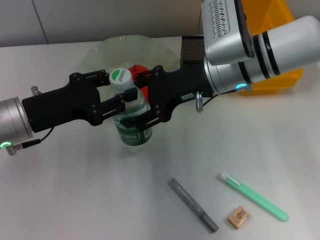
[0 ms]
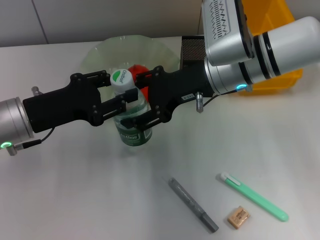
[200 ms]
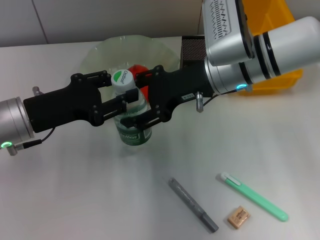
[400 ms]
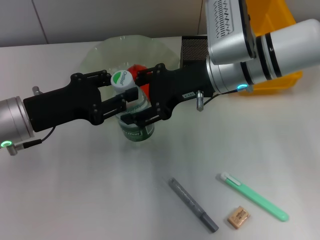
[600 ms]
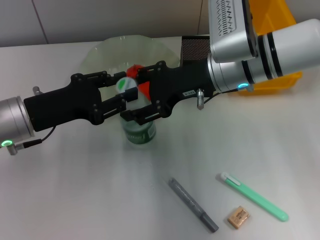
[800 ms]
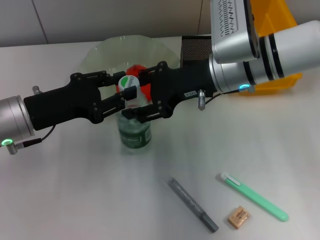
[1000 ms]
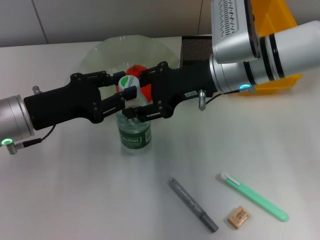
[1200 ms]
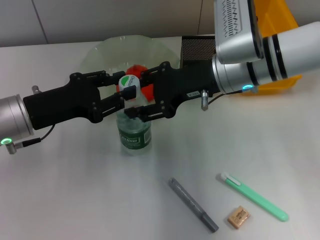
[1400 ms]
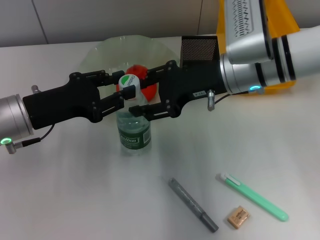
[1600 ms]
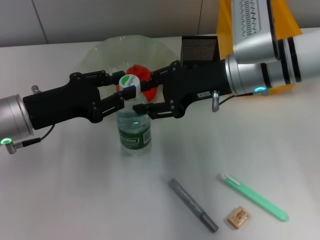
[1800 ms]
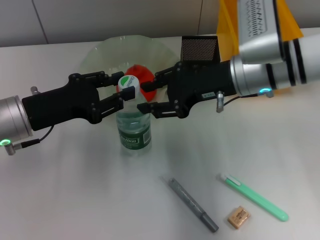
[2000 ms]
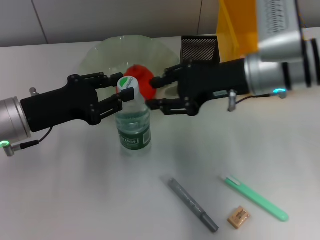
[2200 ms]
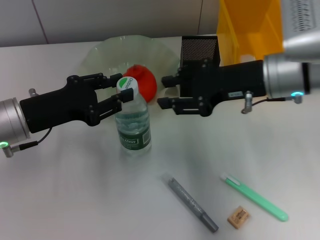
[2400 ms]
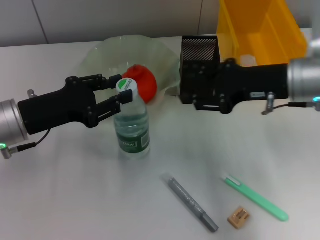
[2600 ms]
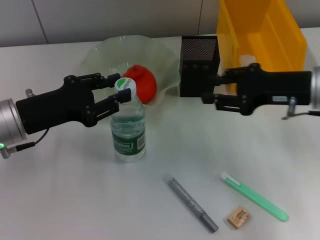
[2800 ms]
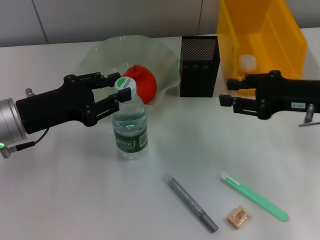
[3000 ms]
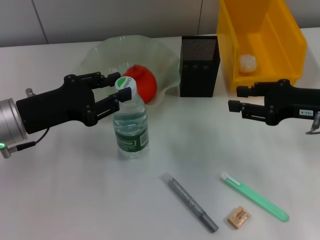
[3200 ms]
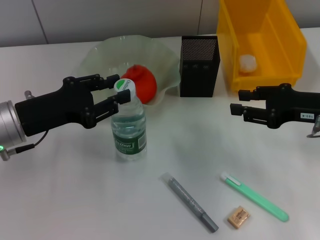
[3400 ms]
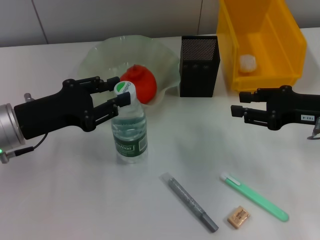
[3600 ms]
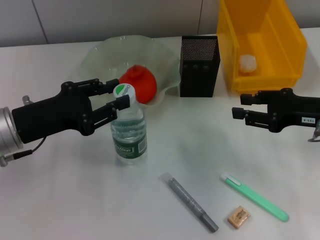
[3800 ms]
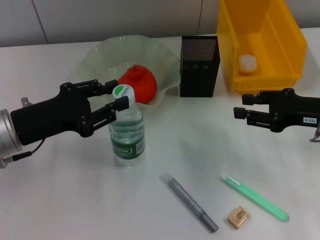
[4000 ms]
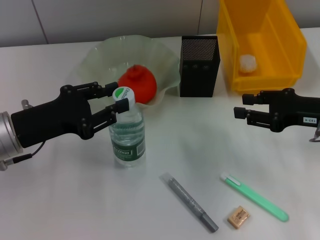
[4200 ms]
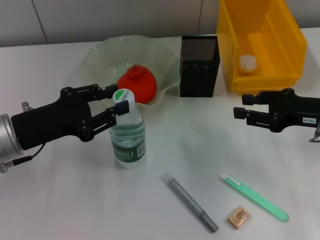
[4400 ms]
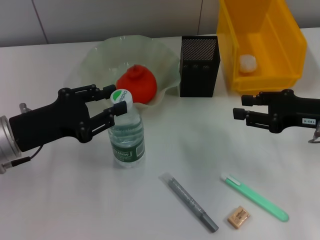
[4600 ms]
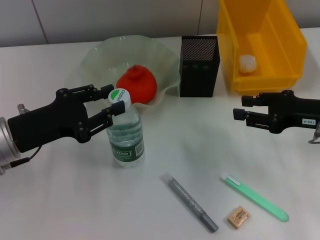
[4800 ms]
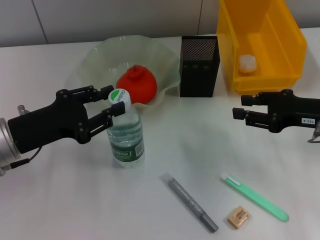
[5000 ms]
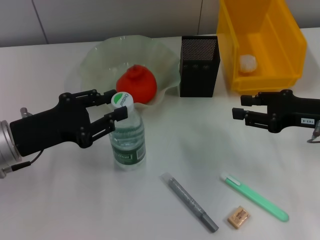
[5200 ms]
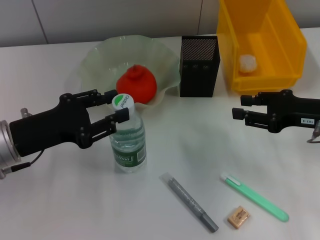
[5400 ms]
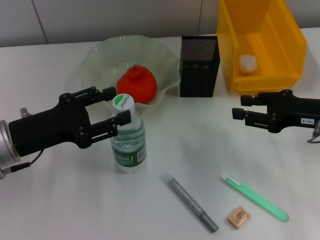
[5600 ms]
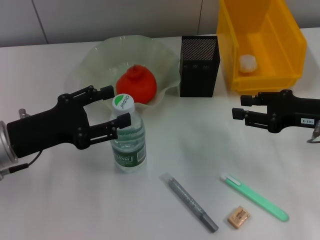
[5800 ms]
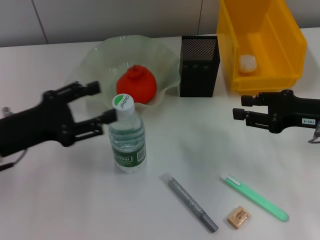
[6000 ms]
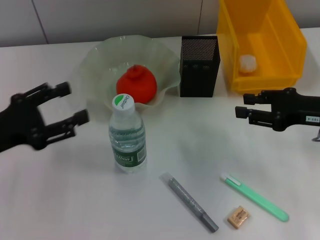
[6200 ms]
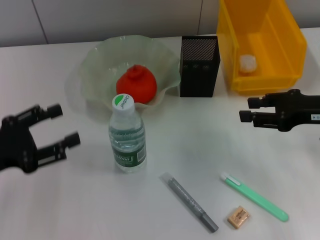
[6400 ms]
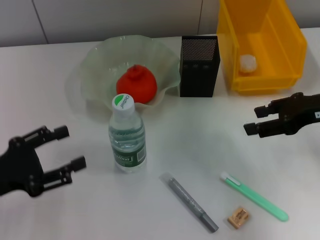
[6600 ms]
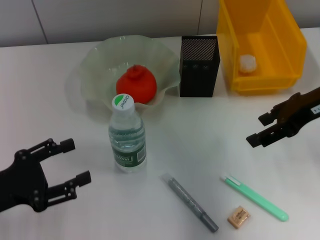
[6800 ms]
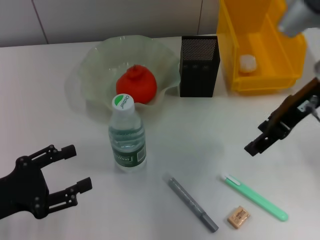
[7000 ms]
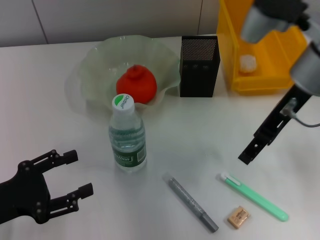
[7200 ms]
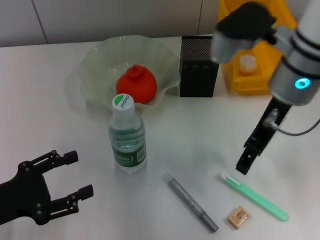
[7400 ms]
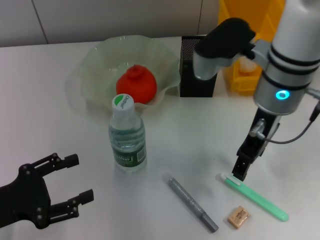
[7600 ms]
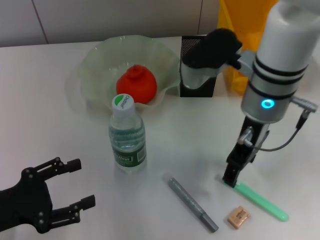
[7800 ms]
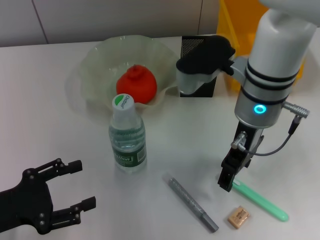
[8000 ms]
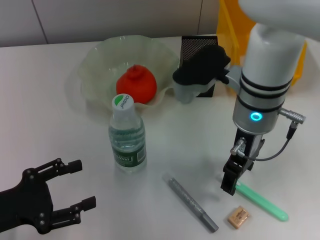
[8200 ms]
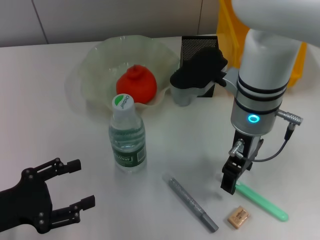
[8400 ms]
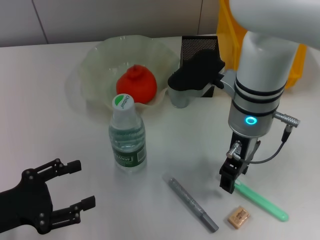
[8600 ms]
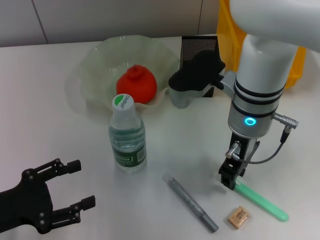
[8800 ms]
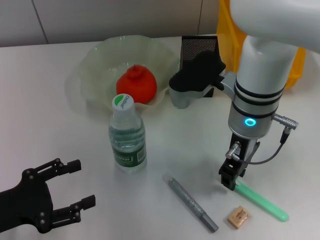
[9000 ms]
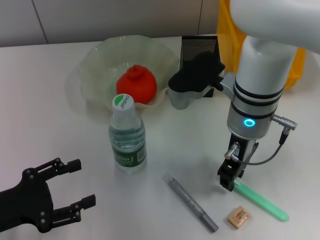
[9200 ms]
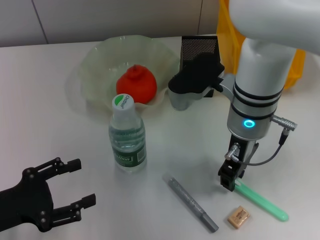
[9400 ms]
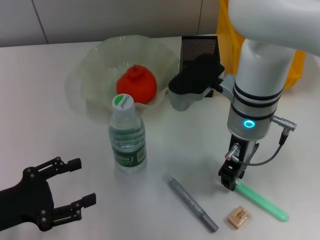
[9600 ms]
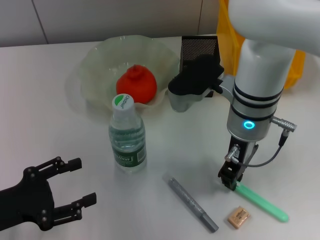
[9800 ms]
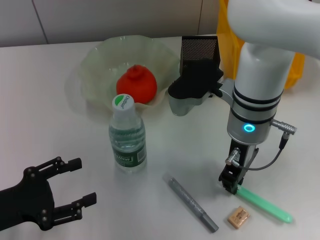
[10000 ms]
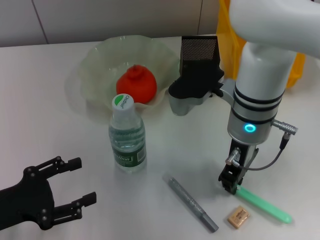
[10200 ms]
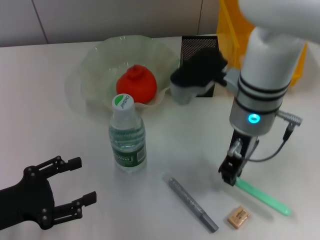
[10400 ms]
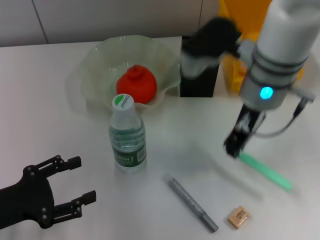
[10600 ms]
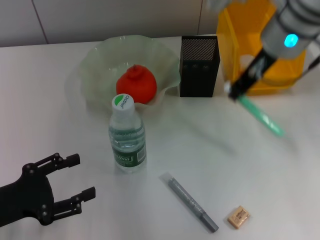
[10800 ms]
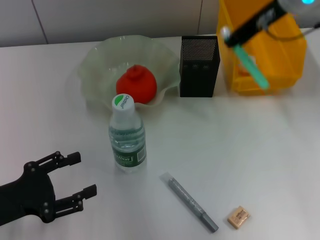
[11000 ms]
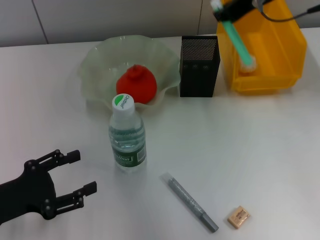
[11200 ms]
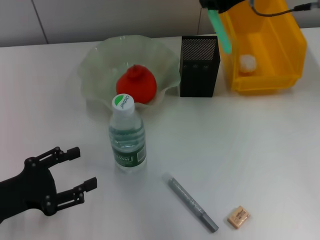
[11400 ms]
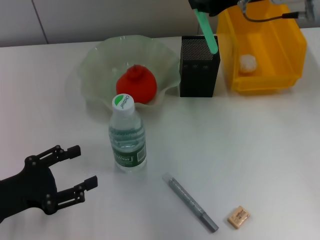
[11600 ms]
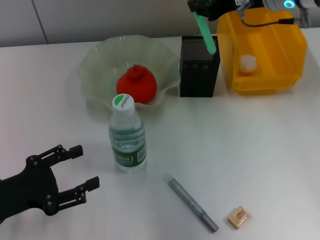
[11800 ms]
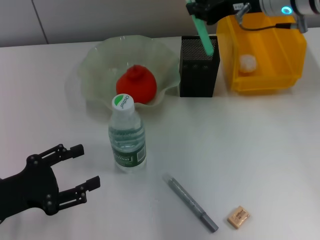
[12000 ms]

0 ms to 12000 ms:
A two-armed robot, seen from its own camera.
Step, 0 ms to 2000 ms: Pass the water bottle from the right hand to the left hand.
Step, 2200 ms to 7400 ms: Place the water bottle on the table with the left hand.
Step, 7600 ms to 9800 ms: Grab the blue utility knife with the right hand.
0 ms to 1600 ms: The grippers move only a little.
1600 ms to 3000 ms: The right gripper goes some 15 cm to the right and backward.
3000 ms to 4400 ms: The grippers make only small movements.
4400 ms to 6000 ms: The left gripper opens its fingers.
6000 ms to 7600 ms: The right gripper moves to the left and upward, about 20 cm, and opens. The left gripper shifts about 10 cm backward.
7600 ms to 9000 ms: The right gripper moves approximately 5 cm, and closes up.
9000 ms to 10400 ms: The right gripper closes up.
10400 ms to 12000 ms: The right gripper shifts approximately 15 cm to the right, forward and upward.

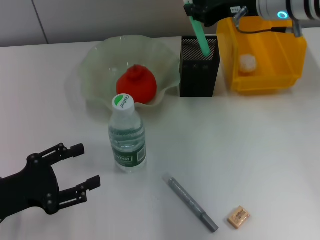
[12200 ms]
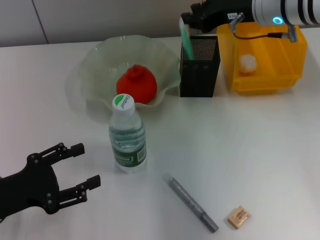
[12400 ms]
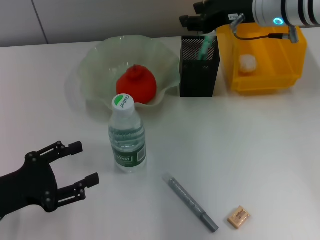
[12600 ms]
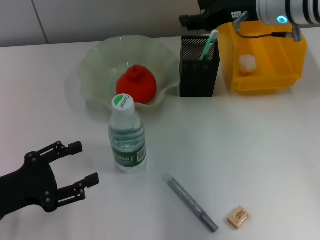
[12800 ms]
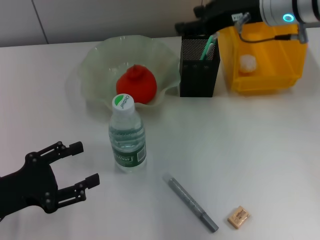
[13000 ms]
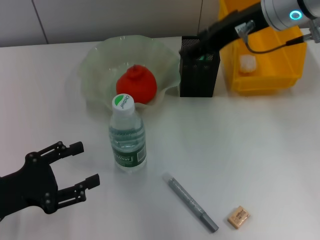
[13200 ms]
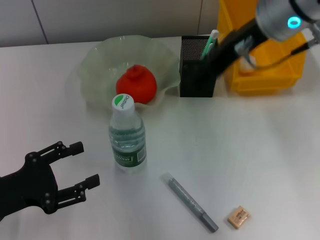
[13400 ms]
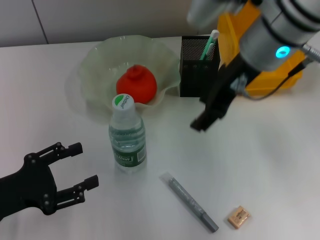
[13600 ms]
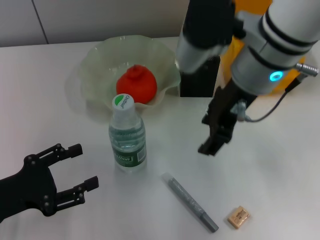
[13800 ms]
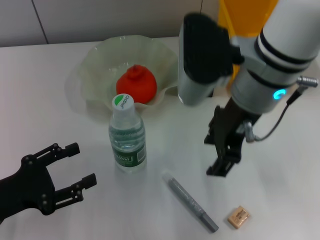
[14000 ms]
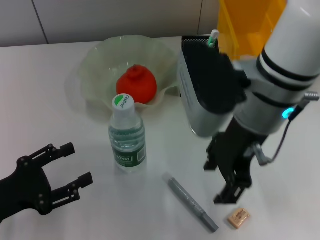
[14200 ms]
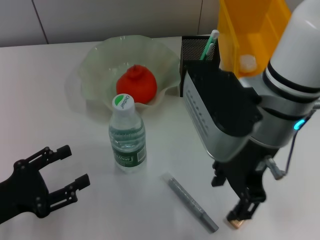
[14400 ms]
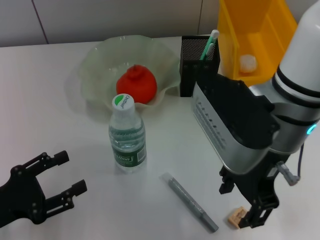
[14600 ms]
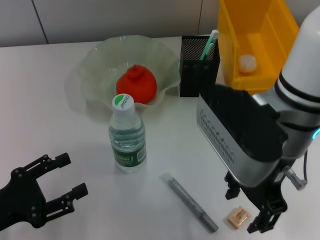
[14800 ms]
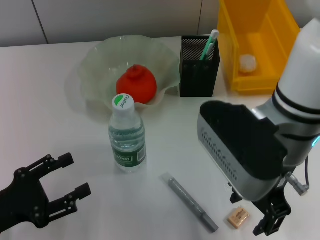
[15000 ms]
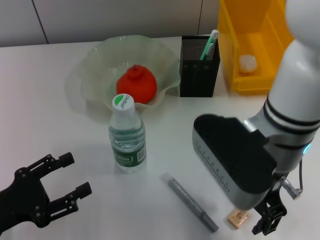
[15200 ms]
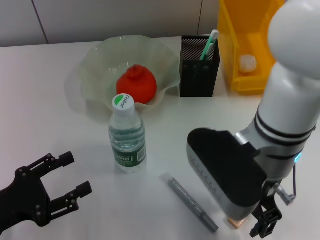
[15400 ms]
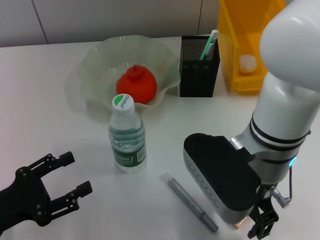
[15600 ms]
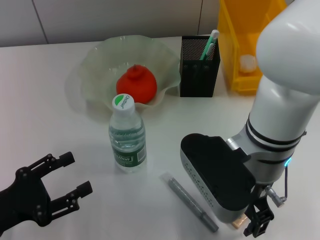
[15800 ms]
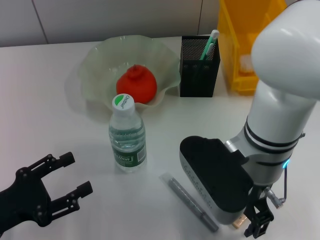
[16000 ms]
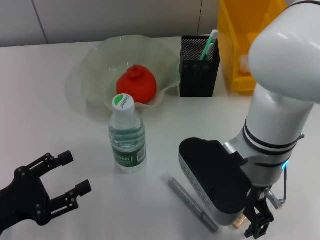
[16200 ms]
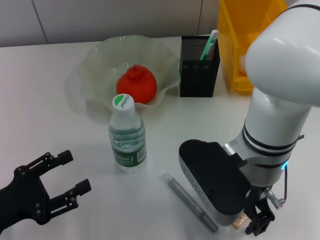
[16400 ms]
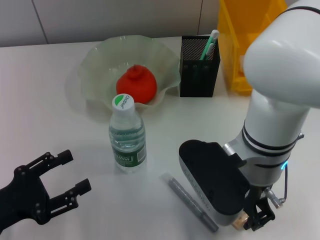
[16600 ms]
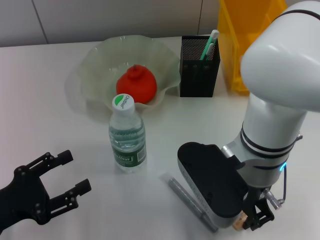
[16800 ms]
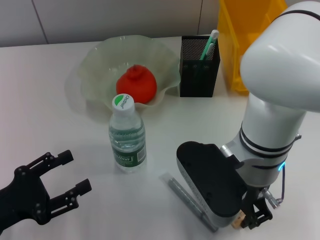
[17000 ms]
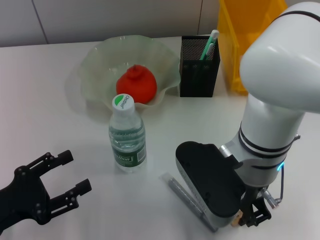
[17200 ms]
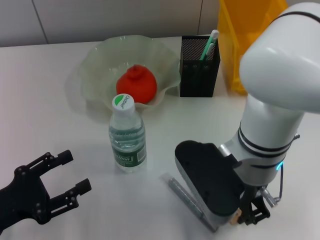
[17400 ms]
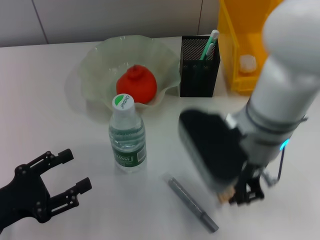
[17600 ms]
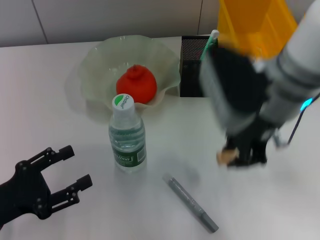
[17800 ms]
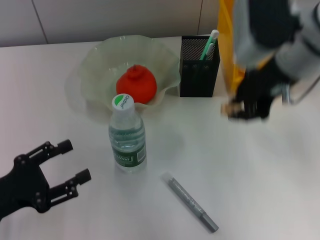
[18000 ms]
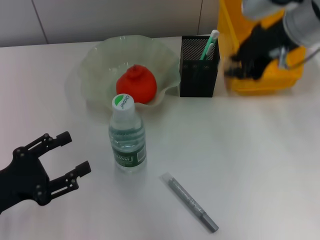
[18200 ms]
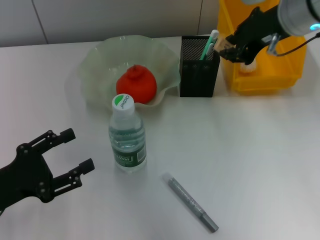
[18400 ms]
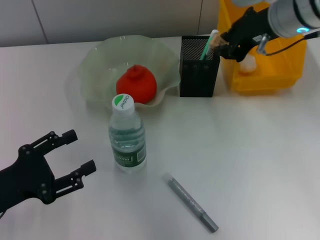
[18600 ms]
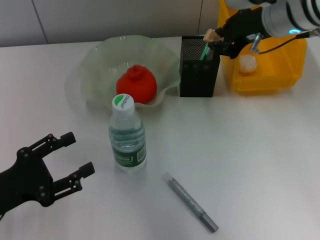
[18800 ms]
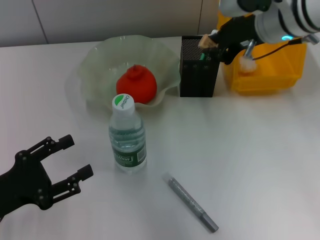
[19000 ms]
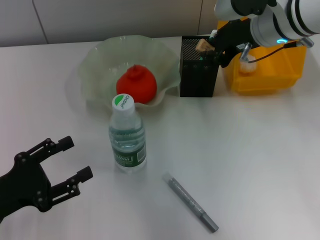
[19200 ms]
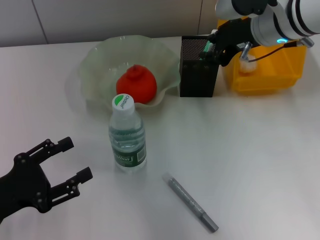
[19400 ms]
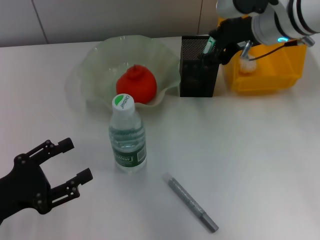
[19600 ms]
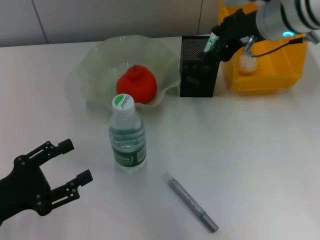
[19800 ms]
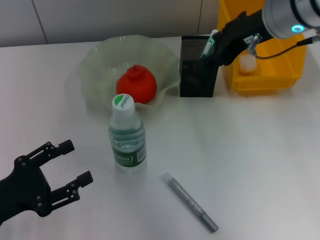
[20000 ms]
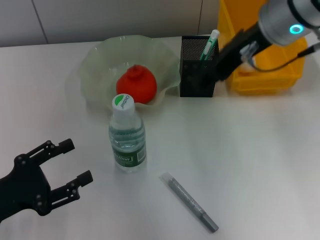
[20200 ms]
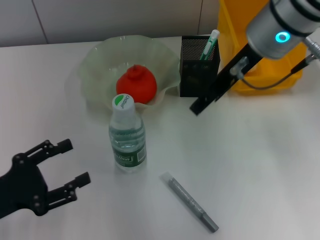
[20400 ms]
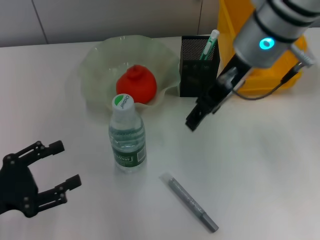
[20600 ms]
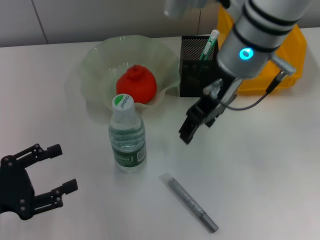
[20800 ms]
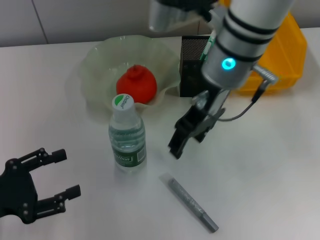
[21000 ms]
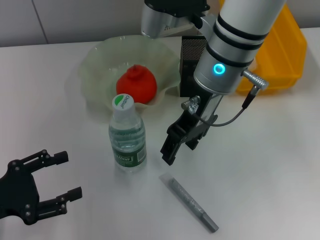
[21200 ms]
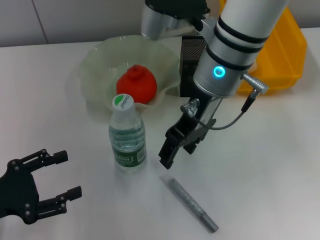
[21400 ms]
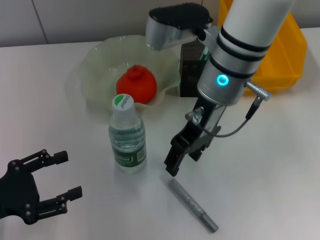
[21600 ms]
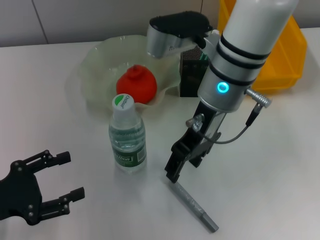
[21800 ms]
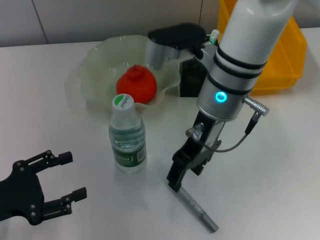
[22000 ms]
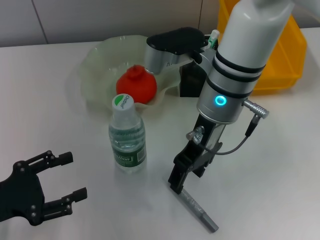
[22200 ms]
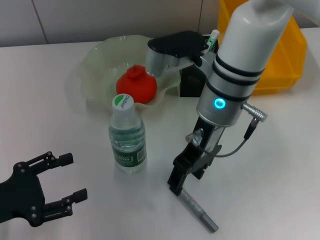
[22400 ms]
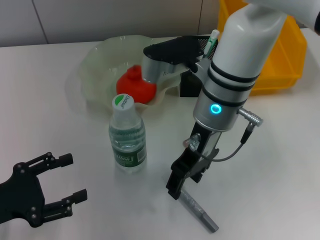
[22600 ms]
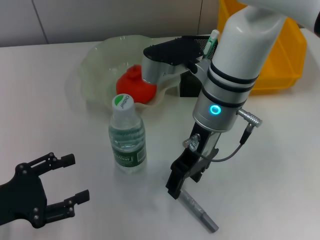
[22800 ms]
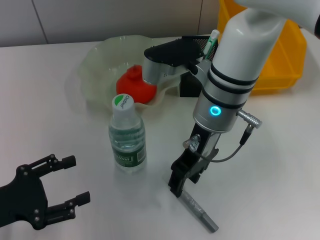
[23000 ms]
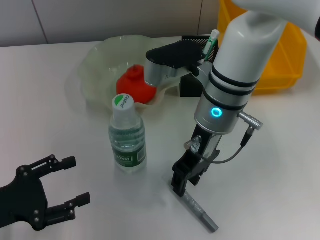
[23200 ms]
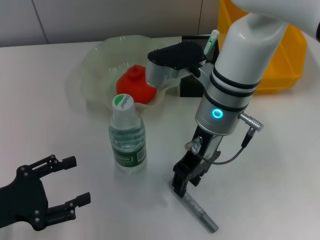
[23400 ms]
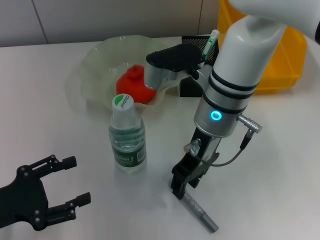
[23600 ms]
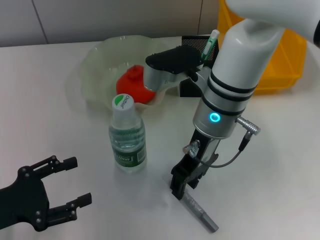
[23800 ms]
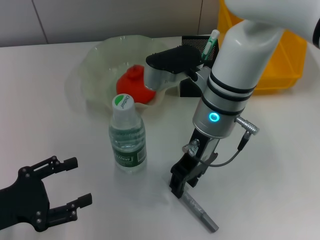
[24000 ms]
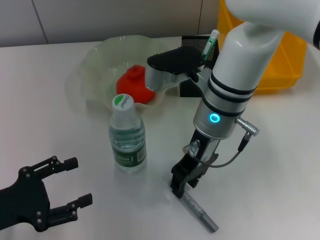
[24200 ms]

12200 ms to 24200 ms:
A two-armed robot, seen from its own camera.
Step, 12200 ms to 14200 ms: Place the blue utility knife into the pen holder with the right hand.
Step, 14400 ms to 17000 ms: Grab the eraser with the right hand.
Step, 17200 ms to 19800 ms: Put the eraser into the pen holder with the right hand.
12200 ms to 13800 ms: The right gripper travels backward and to the left by approximately 10 cm, and opens up.
13800 ms to 15200 ms: The right gripper heads backward and downward, covering about 10 cm.
16600 ms to 18200 ms: The right gripper travels upward, forward and to the right by some 15 cm, and closes its fingers.
18200 ms to 19800 ms: The right gripper opens its fingers.
19800 ms to 21200 ms: The right gripper goes roughly 10 cm to the left.
21200 ms to 22600 ms: The right gripper moves about 5 cm.
22600 ms to 24200 ms: The right gripper closes its fingers.
